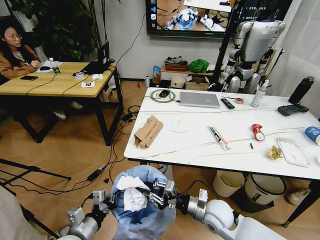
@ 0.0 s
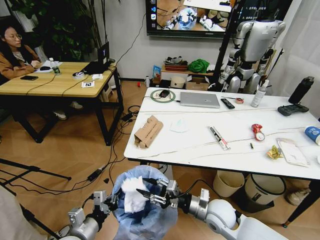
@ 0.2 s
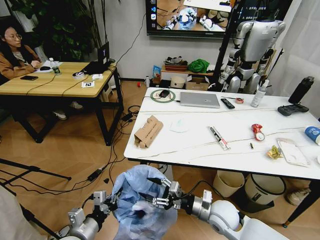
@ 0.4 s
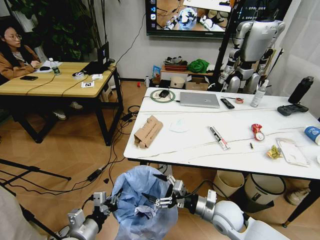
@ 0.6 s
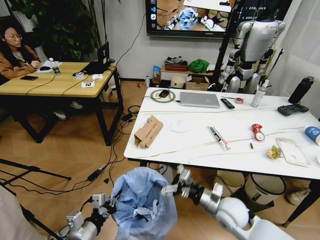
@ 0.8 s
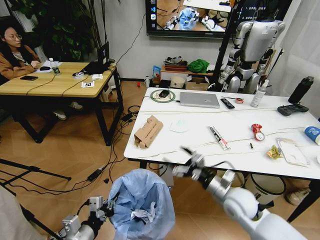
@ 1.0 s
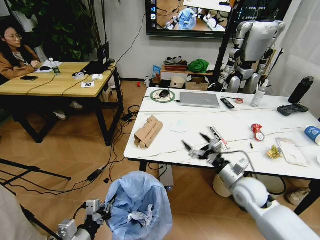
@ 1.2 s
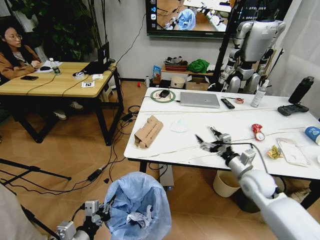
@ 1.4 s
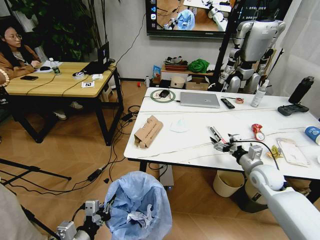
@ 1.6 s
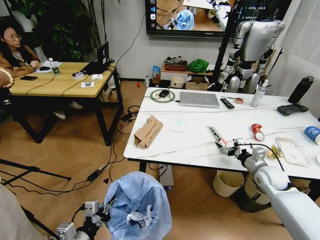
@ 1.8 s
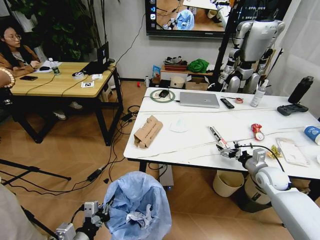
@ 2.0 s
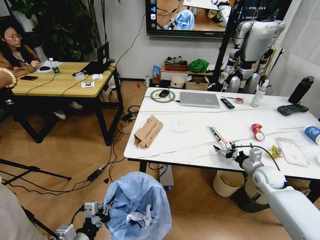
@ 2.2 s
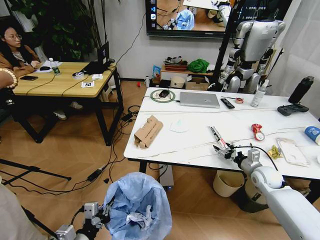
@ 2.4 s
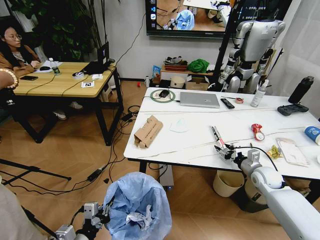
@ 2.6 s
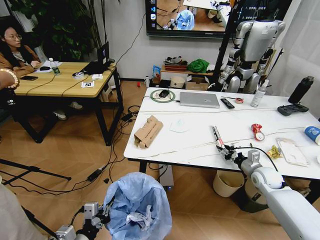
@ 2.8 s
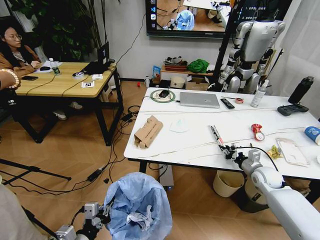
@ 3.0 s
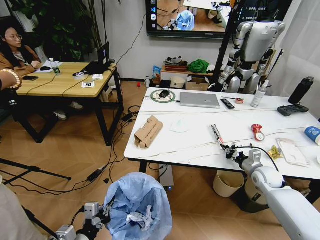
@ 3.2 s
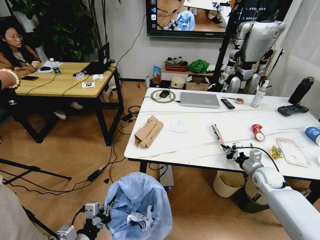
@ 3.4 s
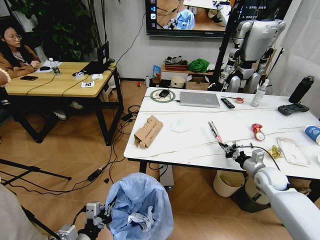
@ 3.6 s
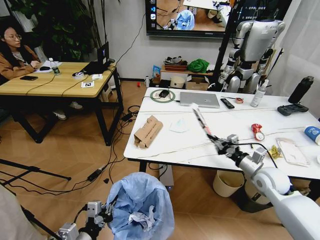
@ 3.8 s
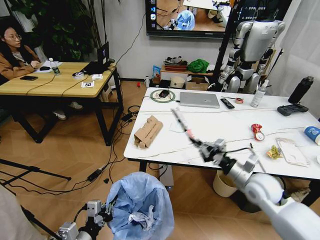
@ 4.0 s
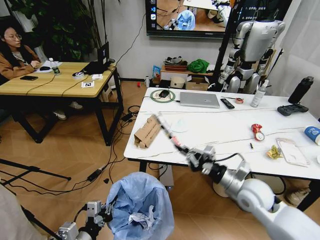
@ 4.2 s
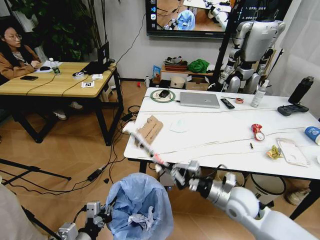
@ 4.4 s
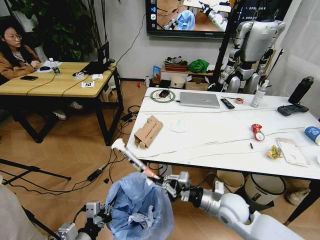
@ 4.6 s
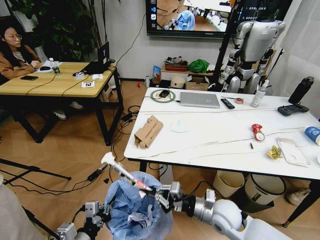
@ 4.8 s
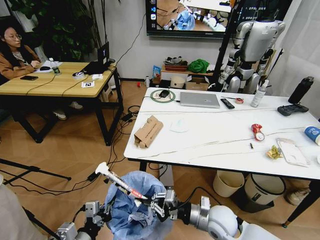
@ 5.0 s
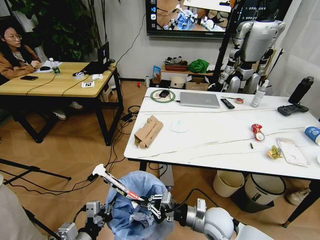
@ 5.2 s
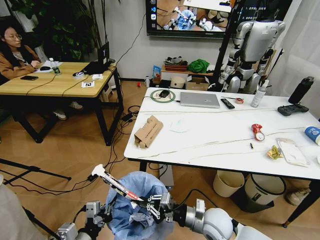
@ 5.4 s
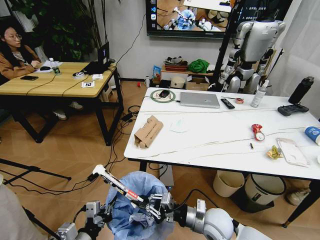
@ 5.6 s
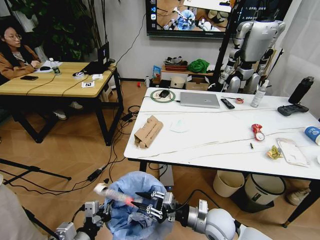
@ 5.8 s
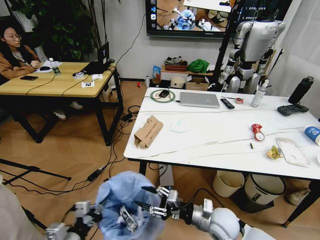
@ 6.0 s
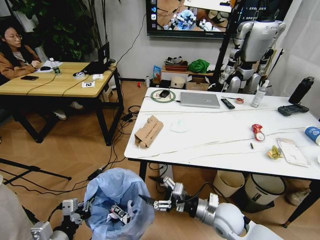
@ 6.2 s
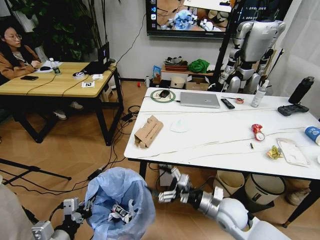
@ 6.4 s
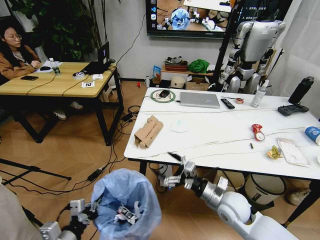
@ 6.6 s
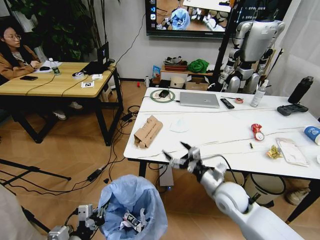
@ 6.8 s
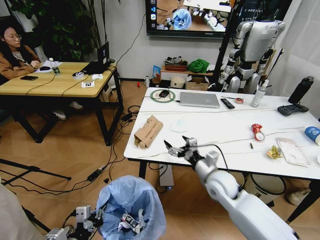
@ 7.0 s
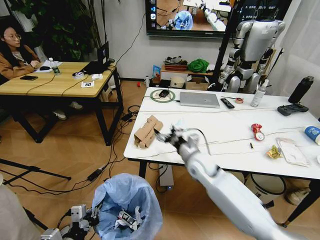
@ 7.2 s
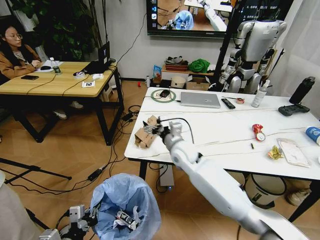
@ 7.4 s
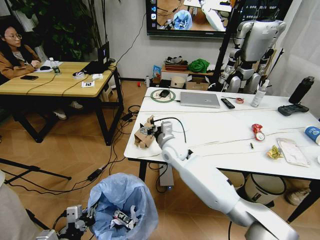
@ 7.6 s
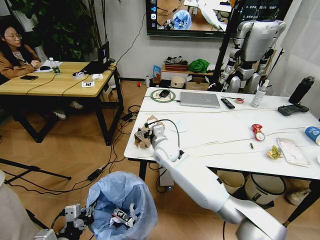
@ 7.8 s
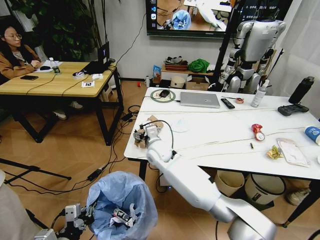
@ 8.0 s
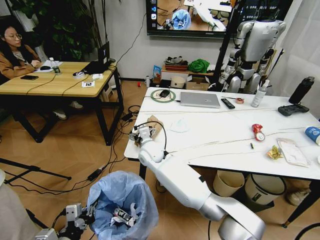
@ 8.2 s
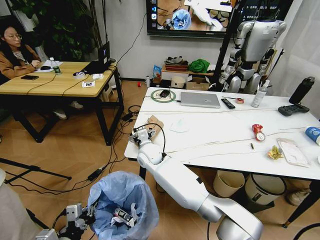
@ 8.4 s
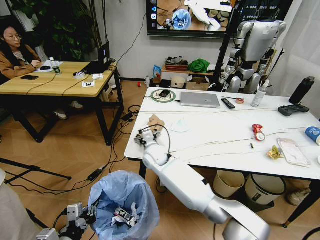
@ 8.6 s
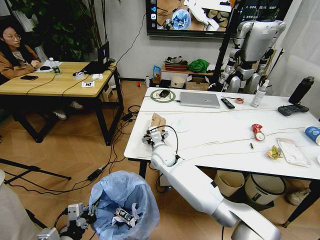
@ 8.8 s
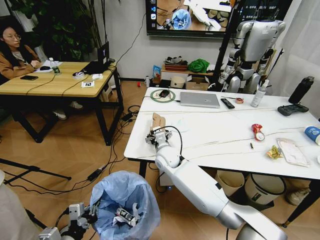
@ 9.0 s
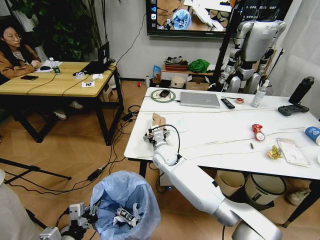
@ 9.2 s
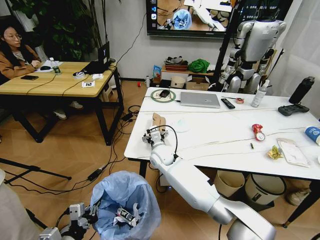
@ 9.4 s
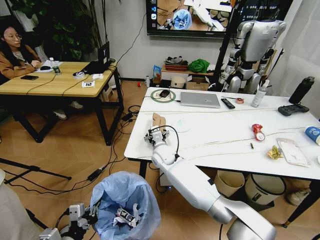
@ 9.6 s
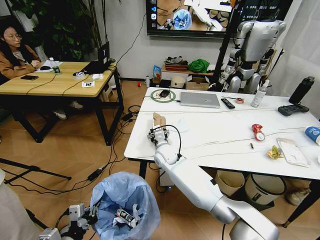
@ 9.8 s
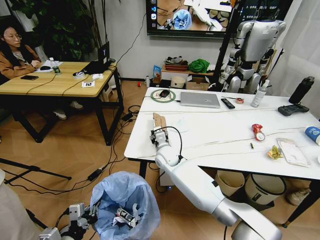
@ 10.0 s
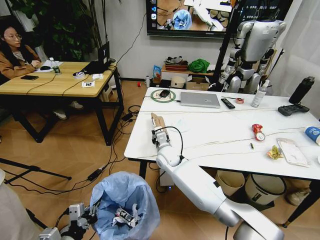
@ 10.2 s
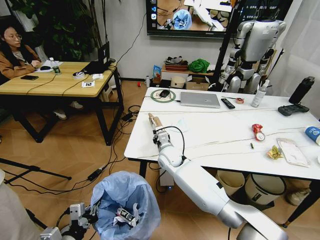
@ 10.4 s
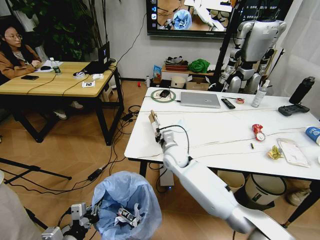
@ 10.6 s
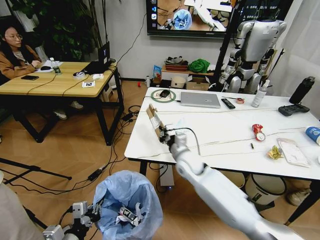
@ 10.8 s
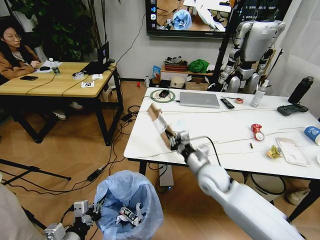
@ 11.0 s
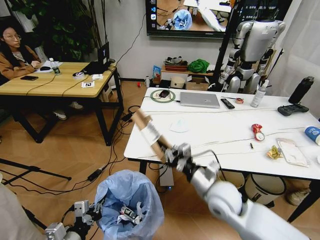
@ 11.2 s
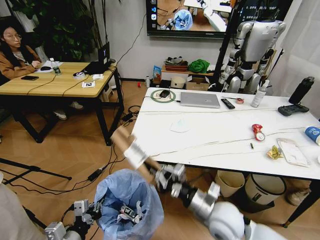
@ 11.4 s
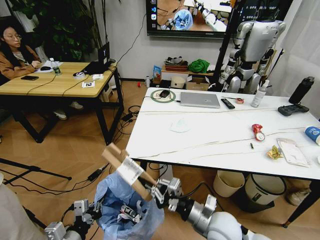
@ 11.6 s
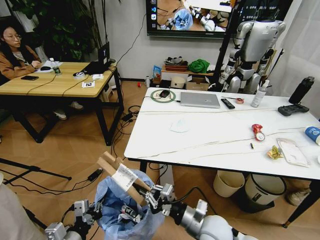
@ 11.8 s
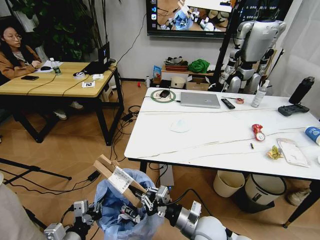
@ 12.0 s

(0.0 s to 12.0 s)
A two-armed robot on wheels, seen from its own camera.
Task of the whole recording: Pick up the trash bin and place the trash from the table into it.
0.0 s - 1.6 s: The right gripper shifts roughly 20 cm to the right and forward, and opens its fingers.
1.6 s - 3.0 s: The right gripper shifts roughly 5 cm downward, and closes.
3.0 s - 4.4 s: The right gripper heads to the left and backward, covering roughly 20 cm.
4.4 s - 6.0 s: The right gripper goes about 10 cm downward and to the left, and opens.
6.0 s - 7.6 s: The right gripper is displaced forward, to the left and upward by some 30 cm, and opens.
7.6 s - 9.0 s: The right gripper is displaced downward by some 5 cm, and reaches some 10 cm to the left, then returns.
9.0 s - 10.4 s: The right gripper closes.
10.4 s - 12.0 s: The right gripper travels backward and to the right by some 25 cm.

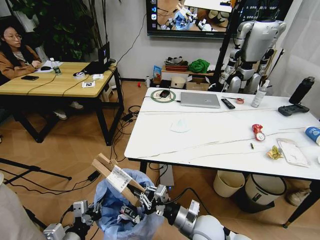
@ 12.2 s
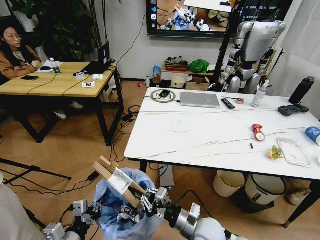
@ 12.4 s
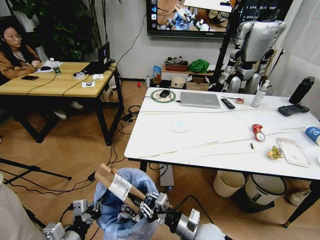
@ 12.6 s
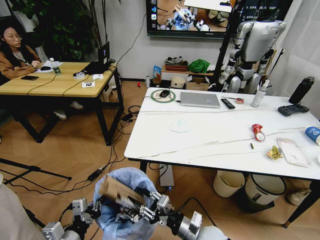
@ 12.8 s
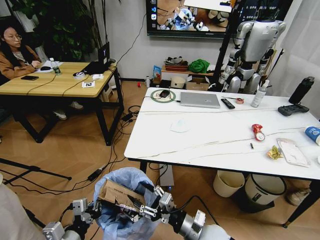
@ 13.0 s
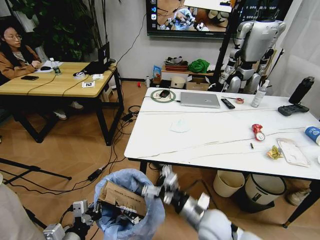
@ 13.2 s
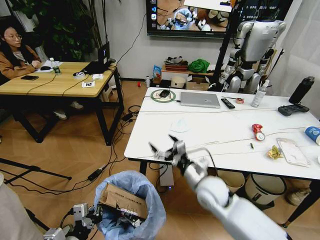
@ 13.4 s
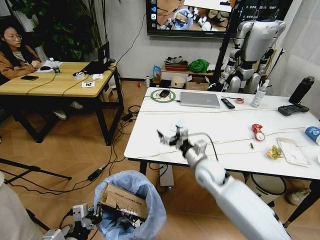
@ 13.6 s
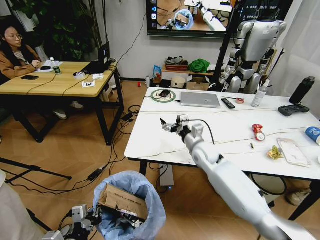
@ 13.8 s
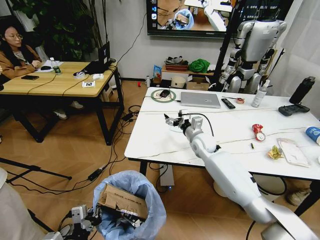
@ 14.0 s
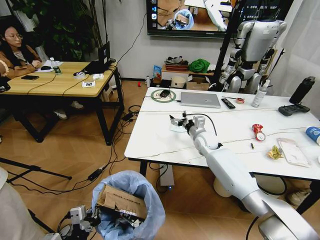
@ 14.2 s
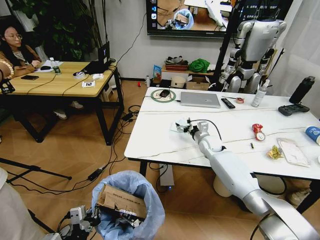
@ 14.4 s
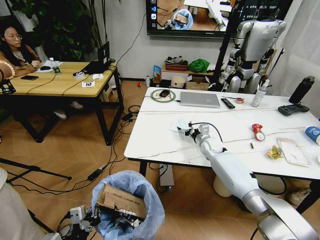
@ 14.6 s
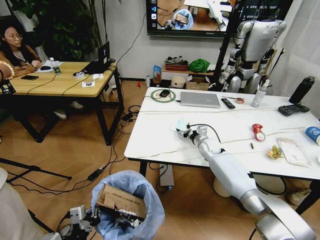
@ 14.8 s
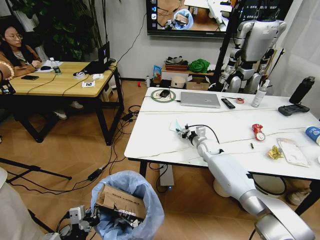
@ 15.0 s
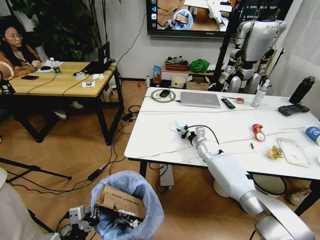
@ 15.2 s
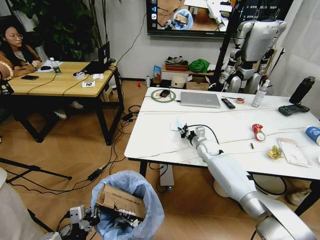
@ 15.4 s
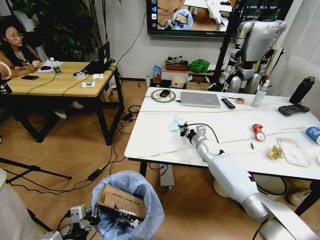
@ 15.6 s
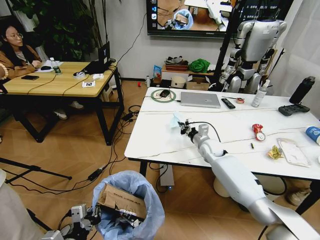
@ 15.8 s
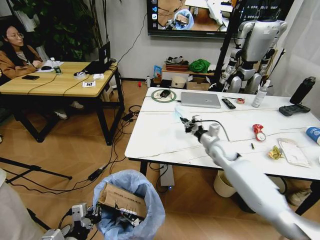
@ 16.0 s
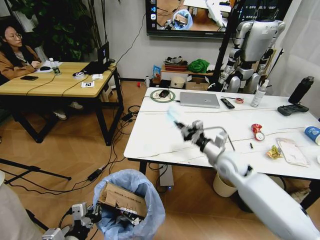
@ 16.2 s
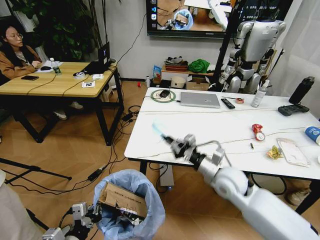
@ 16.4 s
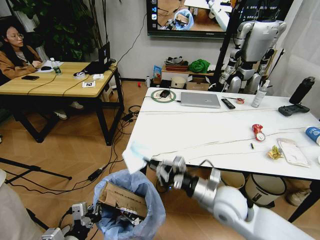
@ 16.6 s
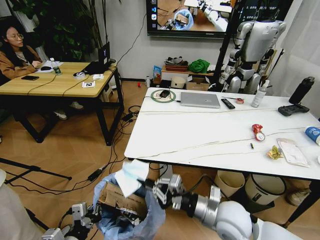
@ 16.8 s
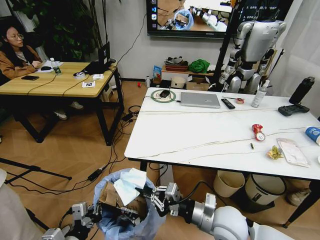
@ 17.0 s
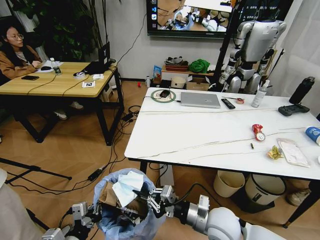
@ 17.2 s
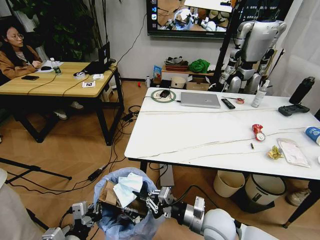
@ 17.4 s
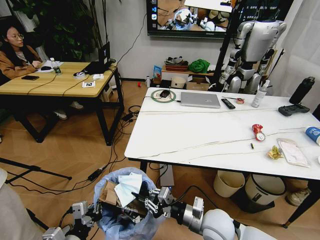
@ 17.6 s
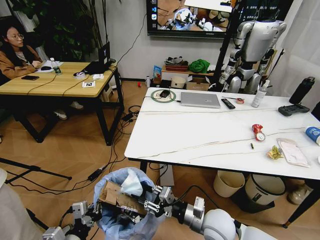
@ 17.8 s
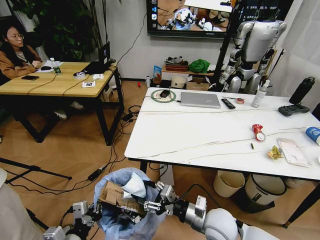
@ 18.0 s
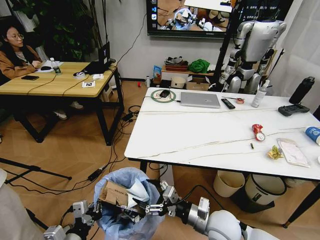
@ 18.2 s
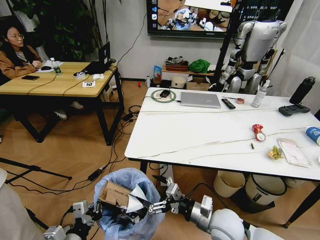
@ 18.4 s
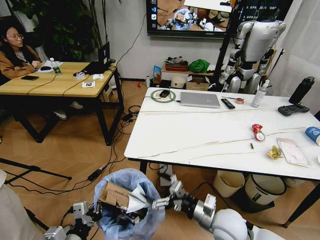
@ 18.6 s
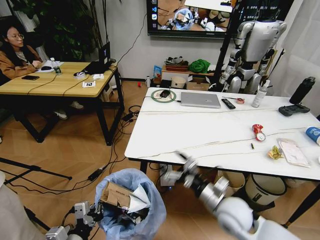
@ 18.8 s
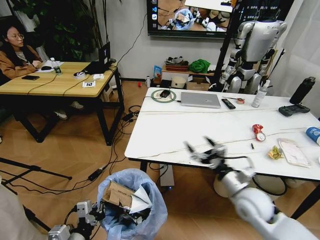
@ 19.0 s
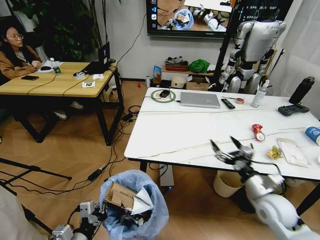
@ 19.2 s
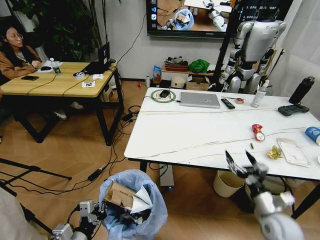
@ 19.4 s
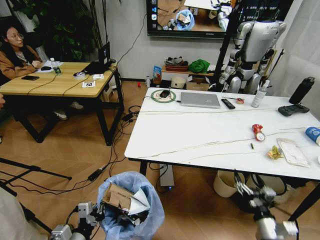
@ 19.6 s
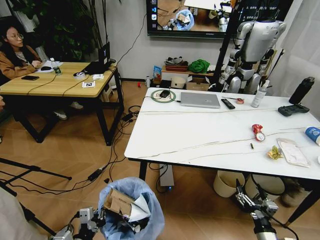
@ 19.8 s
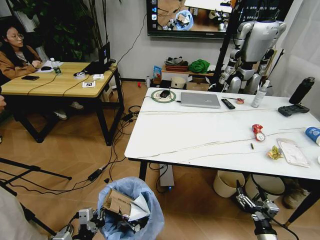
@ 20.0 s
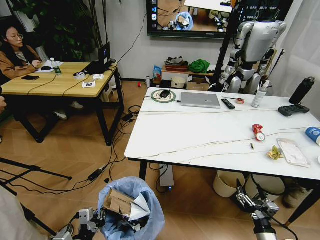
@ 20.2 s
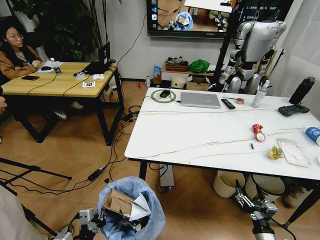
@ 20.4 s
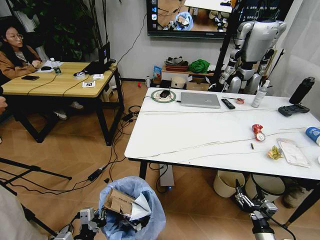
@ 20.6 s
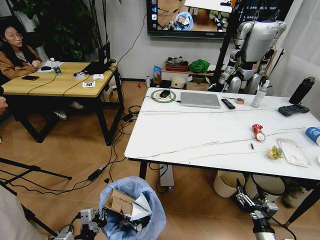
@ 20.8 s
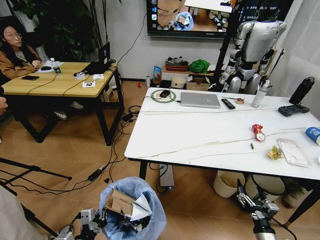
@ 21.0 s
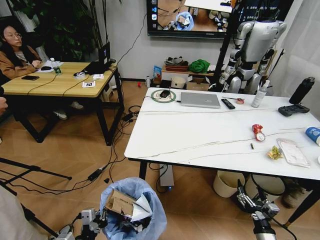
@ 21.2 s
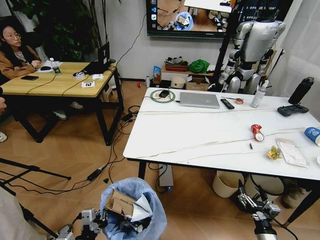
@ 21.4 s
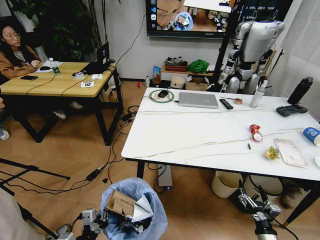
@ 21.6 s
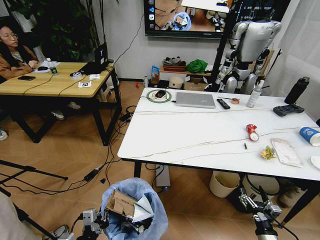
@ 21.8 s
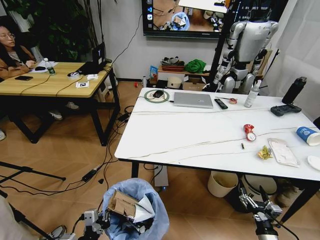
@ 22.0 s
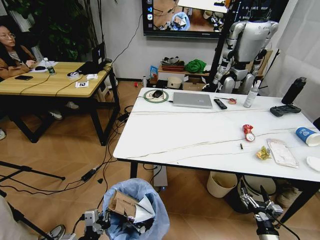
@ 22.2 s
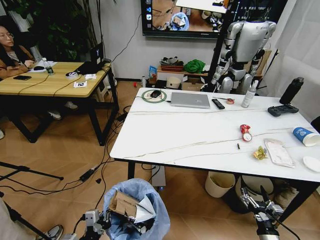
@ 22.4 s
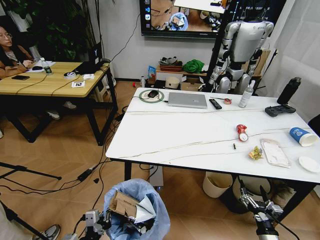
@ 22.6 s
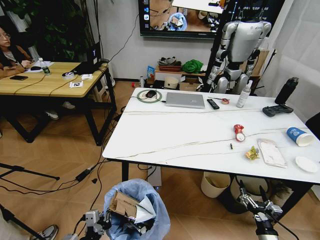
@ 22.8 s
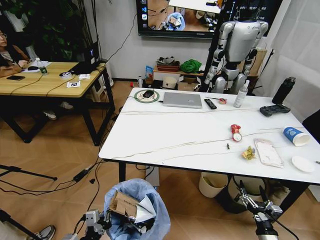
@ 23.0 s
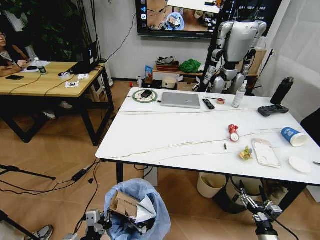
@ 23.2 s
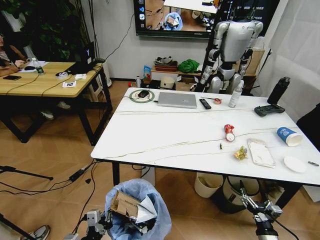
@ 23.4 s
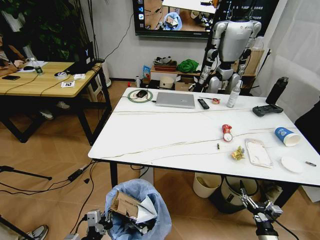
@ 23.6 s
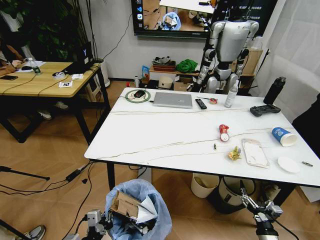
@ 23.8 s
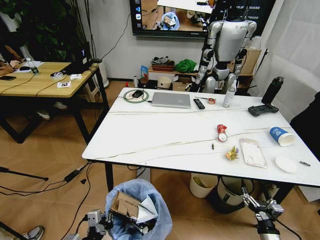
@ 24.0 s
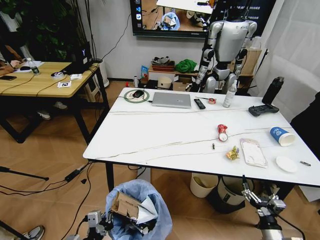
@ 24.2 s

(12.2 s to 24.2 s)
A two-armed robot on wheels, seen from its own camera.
Task of the whole recording: Pick up the trash bin and place the trash from the table into it.
12.2 s - 13.8 s: The right gripper moves forward, some 25 cm, and opens its fingers.
13.8 s - 15.2 s: The right gripper heads downward, forward and to the right, covering some 15 cm, and closes its fingers.
15.2 s - 16.6 s: The right gripper travels backward by about 30 cm, and closes up.
16.6 s - 18.2 s: The right gripper heads downward, covering roughly 5 cm, and opens up.
18.2 s - 19.8 s: The right gripper goes approximately 25 cm to the right, downward and backward.
19.8 s - 21.2 s: The grippers stay close to where they were, moving slightly.
